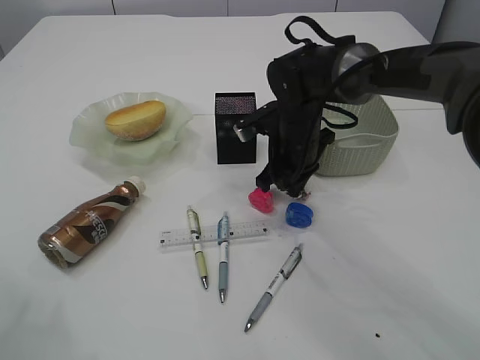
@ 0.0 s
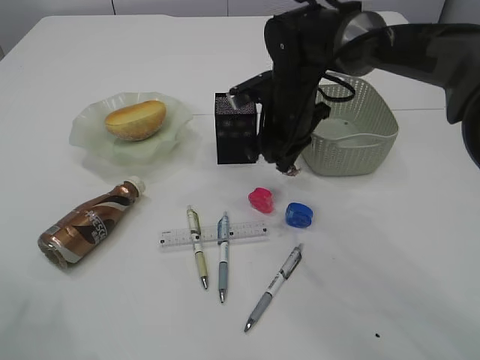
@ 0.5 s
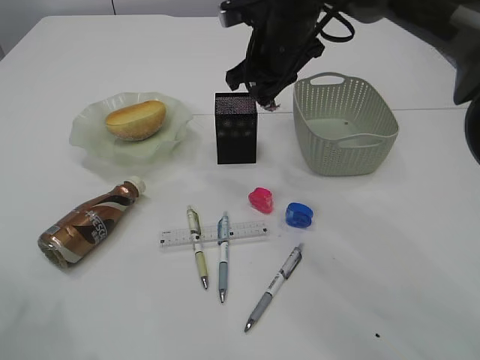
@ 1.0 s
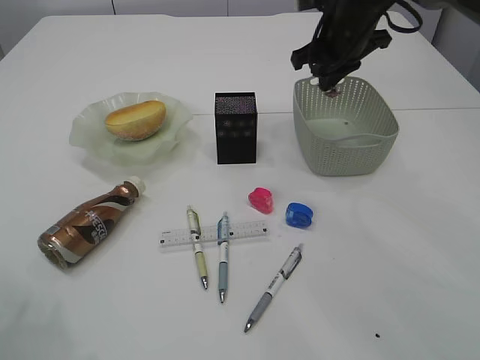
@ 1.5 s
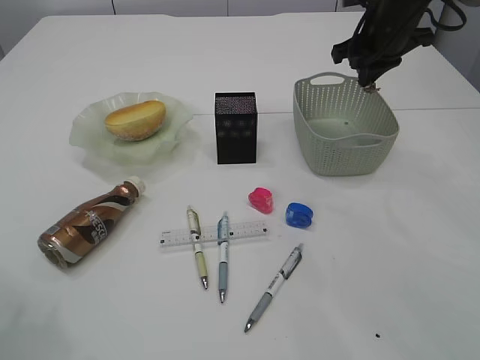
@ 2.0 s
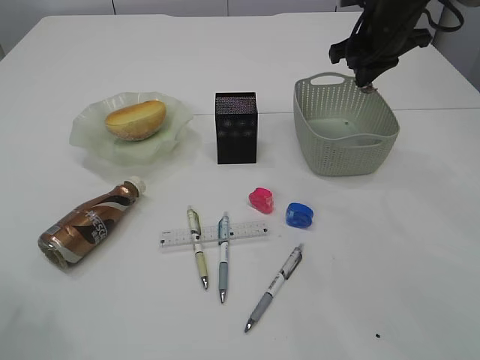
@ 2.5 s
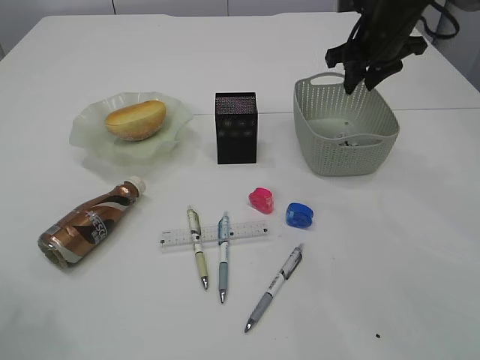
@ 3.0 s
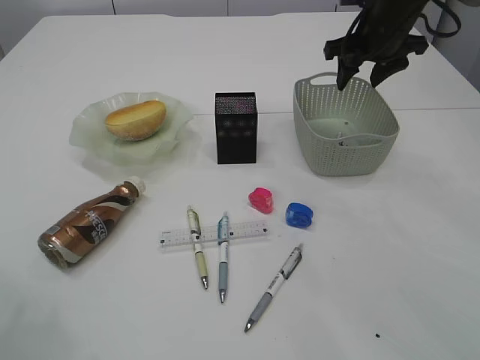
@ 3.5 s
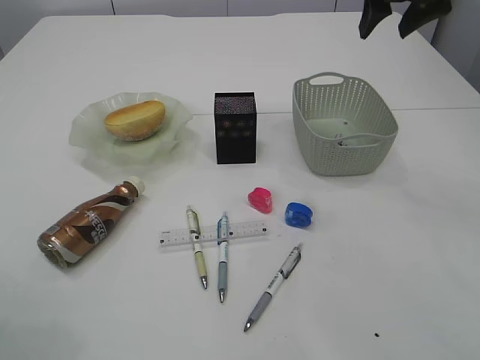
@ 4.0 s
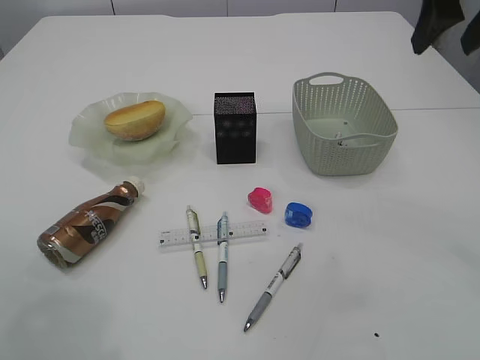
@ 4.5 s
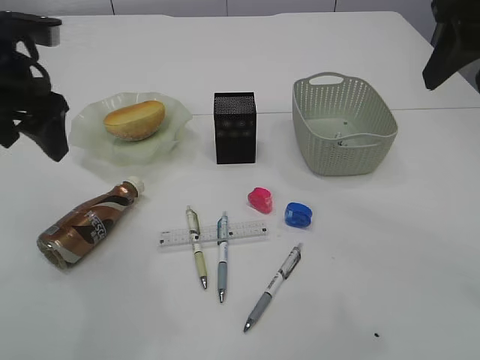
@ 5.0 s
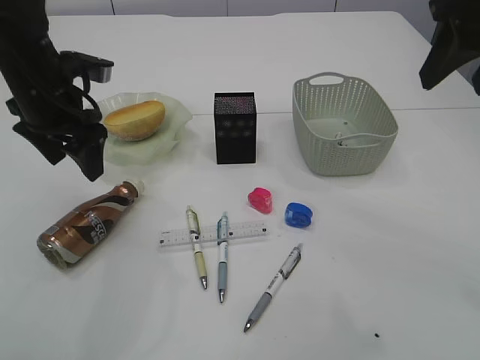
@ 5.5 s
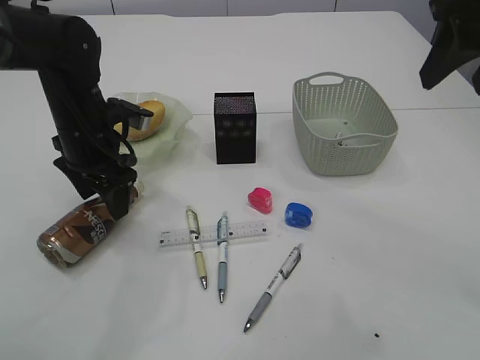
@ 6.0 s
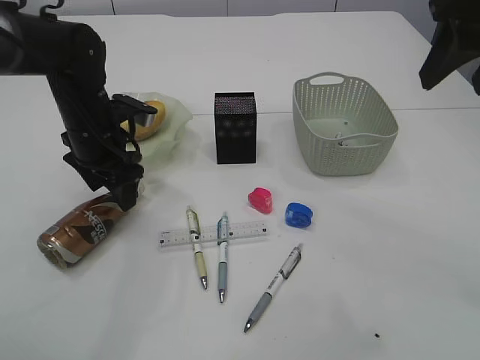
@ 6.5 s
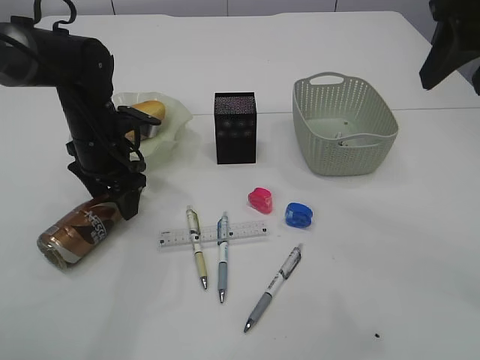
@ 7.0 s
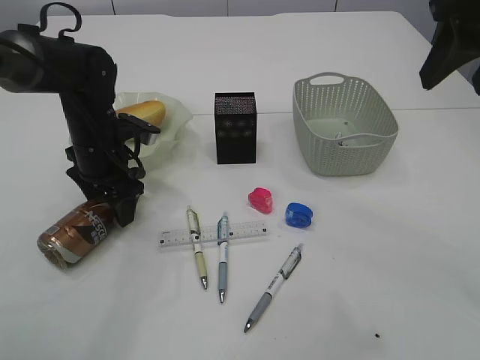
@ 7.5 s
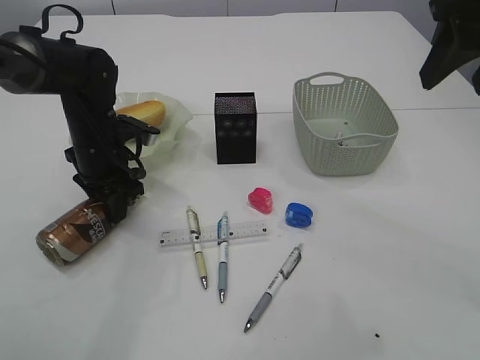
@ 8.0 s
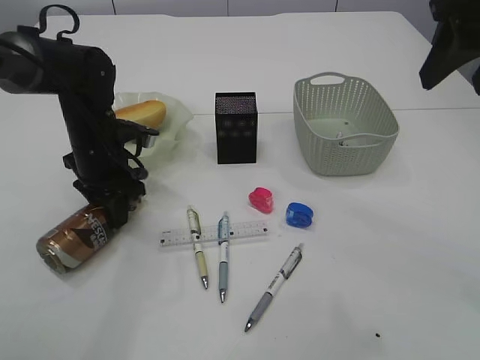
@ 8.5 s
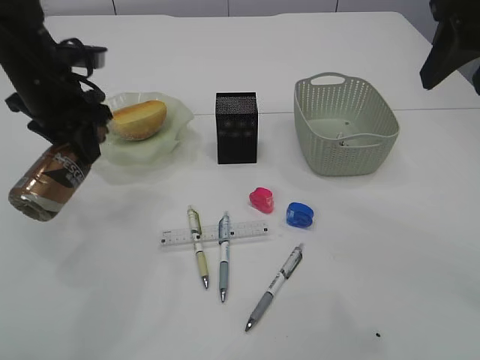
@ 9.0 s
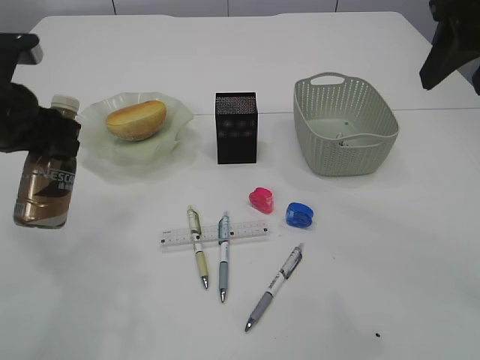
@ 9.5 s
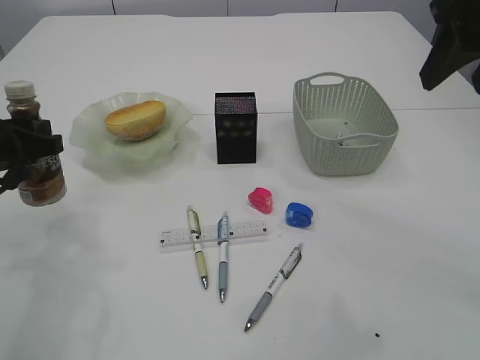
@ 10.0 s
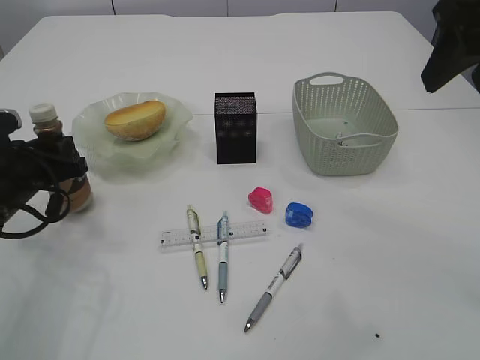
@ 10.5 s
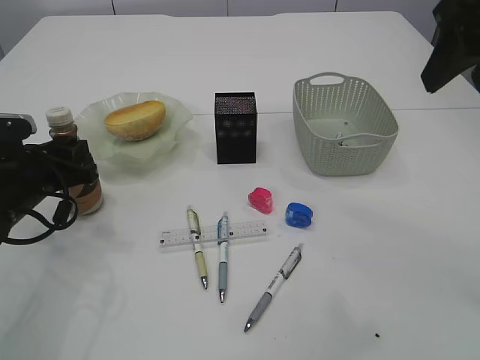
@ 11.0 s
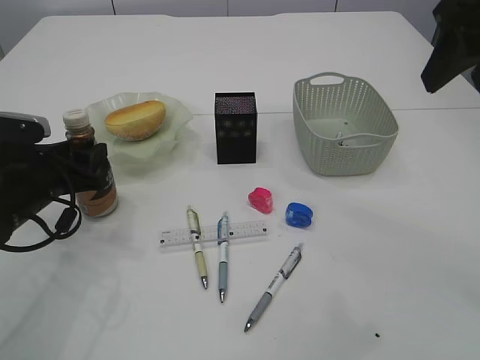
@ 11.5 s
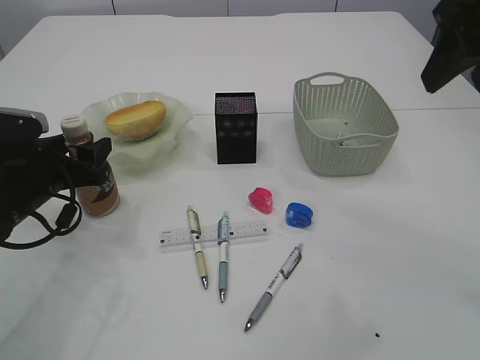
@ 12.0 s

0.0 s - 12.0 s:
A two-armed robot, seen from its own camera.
Step, 1.0 s - 3.5 s: Place the waste paper in the basket.
Step, 4.0 s - 8.5 s: Pick up the bottle with the left arm.
0.0 s - 2.0 s: The right gripper moves to the right, upward and forward, approximately 20 cm.
2.0 s - 4.0 s: The right gripper travels upward and backward by approximately 10 cm, and opens.
4.0 s - 6.0 s: The left gripper is displaced forward, downward and to the right by approximately 25 cm, while the right gripper travels backward by some 15 cm.
6.0 s - 8.0 s: The left gripper closes its fingers.
8.0 s - 10.0 s: The left gripper heads backward, to the left and upward, covering about 15 cm.
10.0 s - 12.0 s: The left gripper heads downward, covering about 5 cm, and opens its fingers.

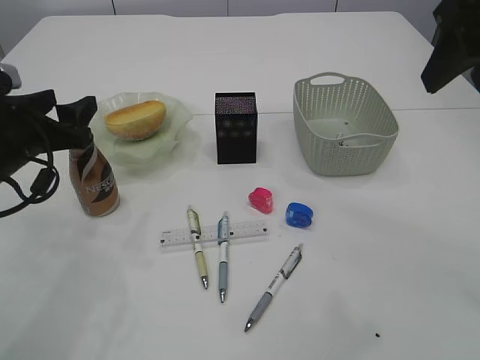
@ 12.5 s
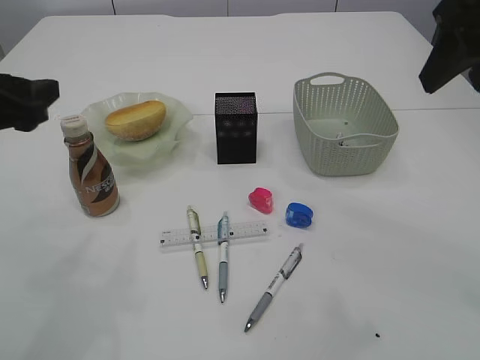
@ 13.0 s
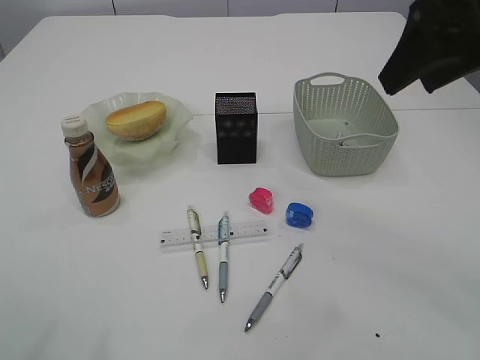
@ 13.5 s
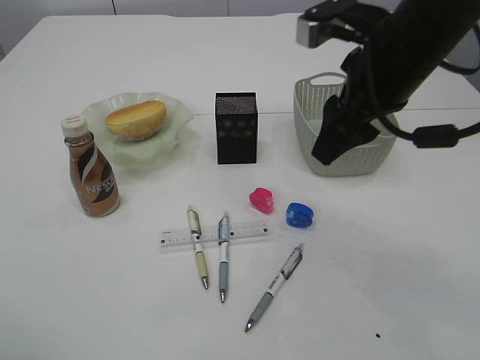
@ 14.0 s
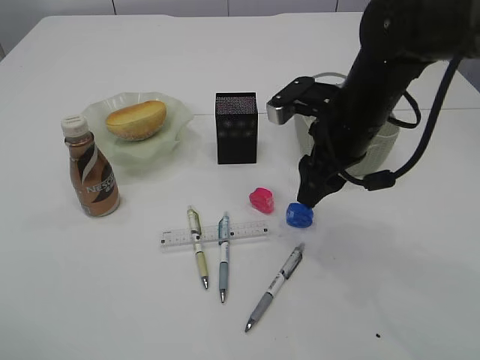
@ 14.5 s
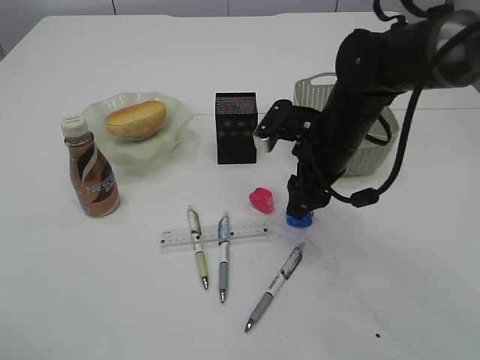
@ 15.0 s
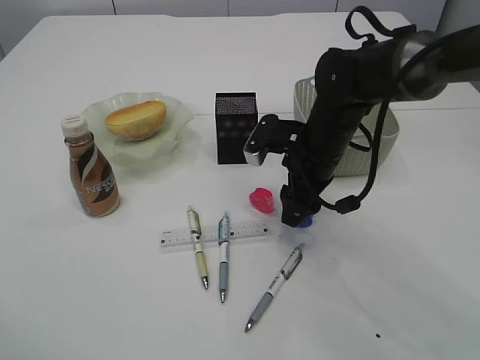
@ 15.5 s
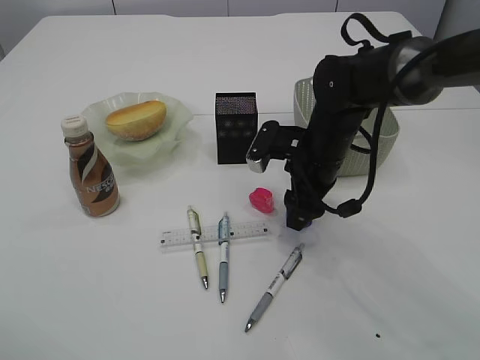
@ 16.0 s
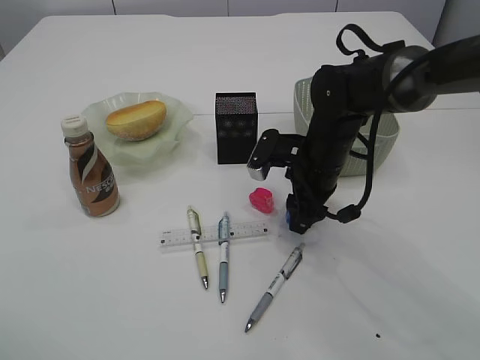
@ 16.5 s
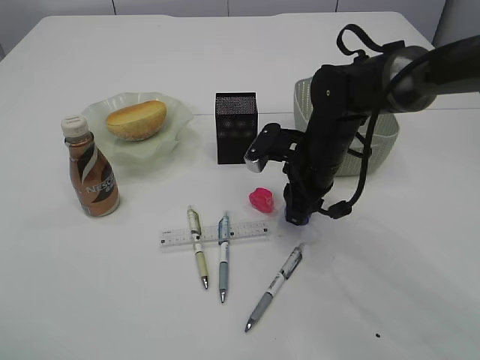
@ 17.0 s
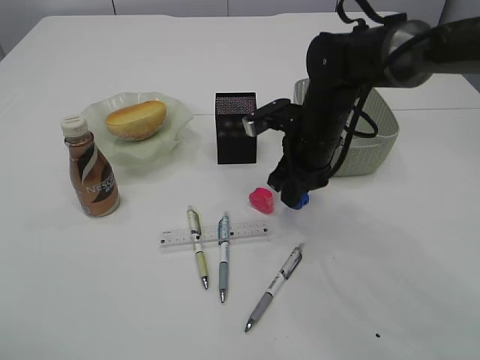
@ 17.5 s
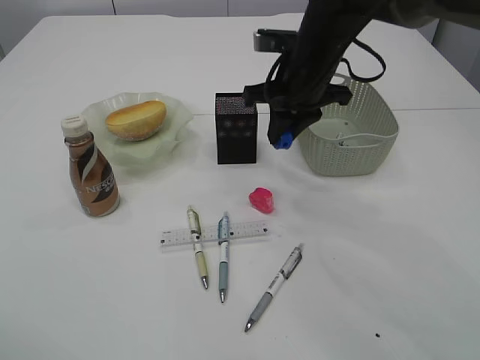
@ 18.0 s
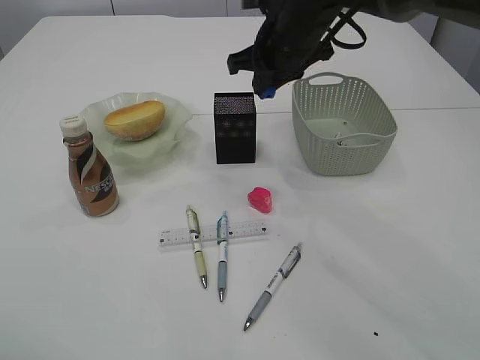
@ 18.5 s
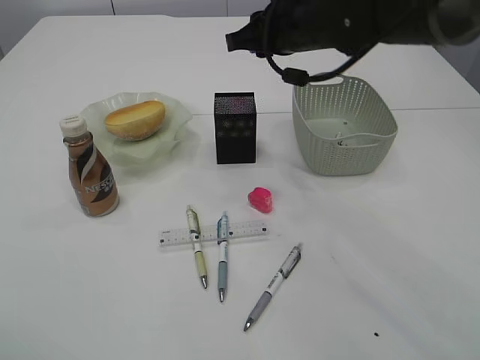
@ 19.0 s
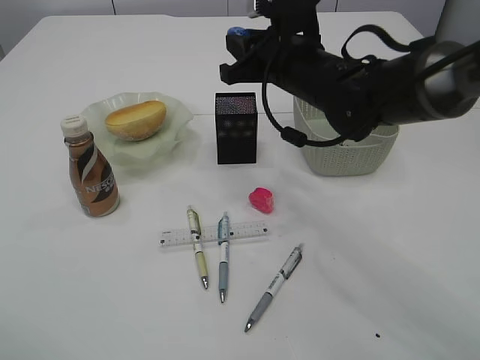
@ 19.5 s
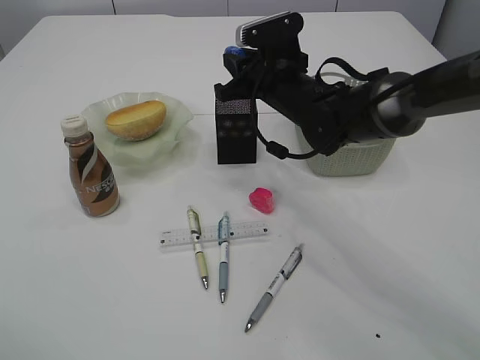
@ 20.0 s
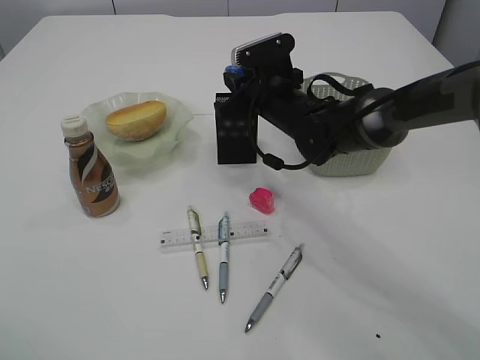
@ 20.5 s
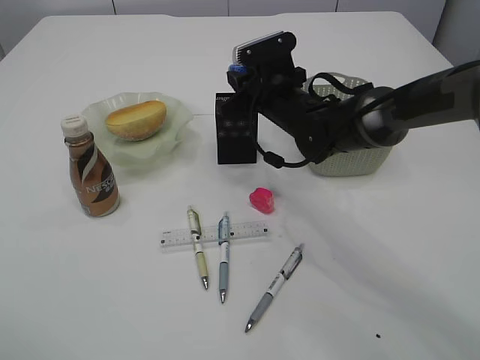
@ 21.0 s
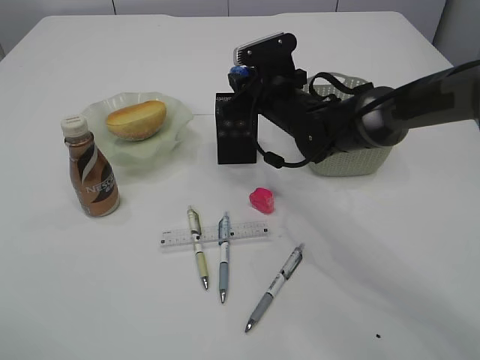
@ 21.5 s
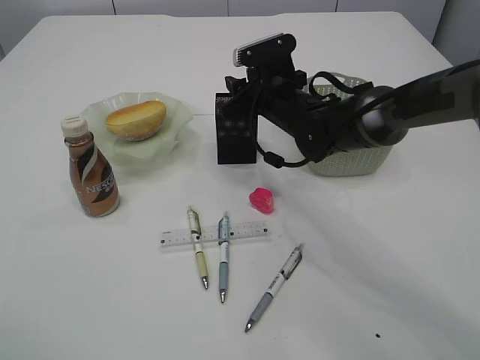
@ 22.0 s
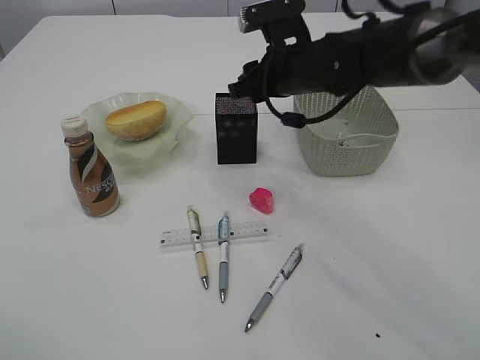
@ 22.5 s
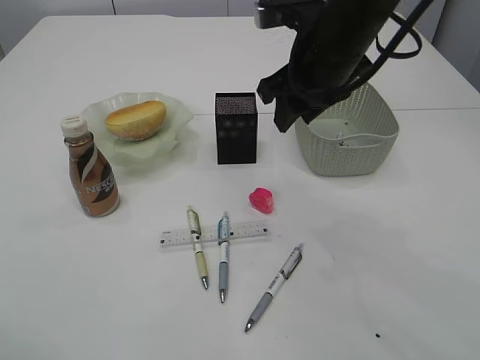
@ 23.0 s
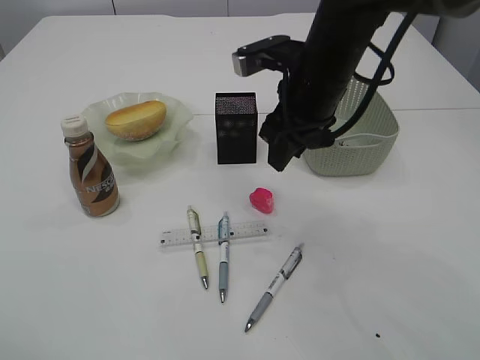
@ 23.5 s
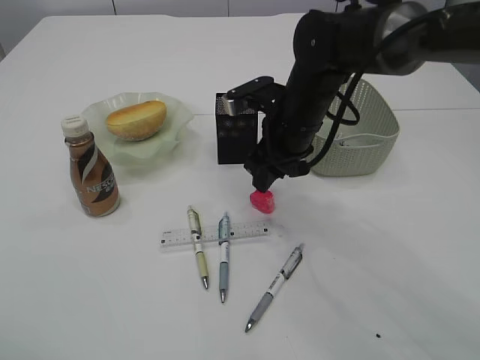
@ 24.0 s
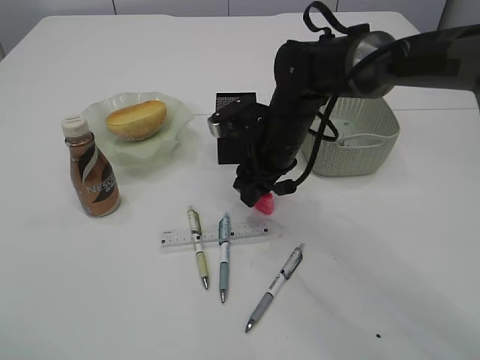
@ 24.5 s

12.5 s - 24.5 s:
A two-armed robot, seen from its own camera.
Step, 13.0 s - 17.5 s: Pick up the blue pencil sharpener.
Step, 18.0 s - 22.5 s: Place the blue pencil sharpener into the pen holder.
12.5 s - 14.5 s: The right gripper is displaced downward, to the left and forward by some 20 cm, while the left gripper goes roughly 25 cm upward and backward.
14.5 s - 16.5 s: The right gripper travels downward by some 10 cm.
16.5 s - 18.5 s: The right gripper shifts approximately 15 cm upward and forward, and closes its fingers.
18.5 s - 20.5 s: The right gripper is displaced downward by some 10 cm.
20.5 s - 22.5 s: The right gripper is displaced upward by approximately 5 cm.
22.5 s - 24.5 s: The right gripper is displaced downward by some 5 cm.

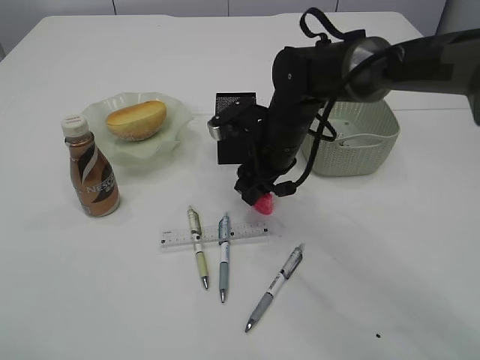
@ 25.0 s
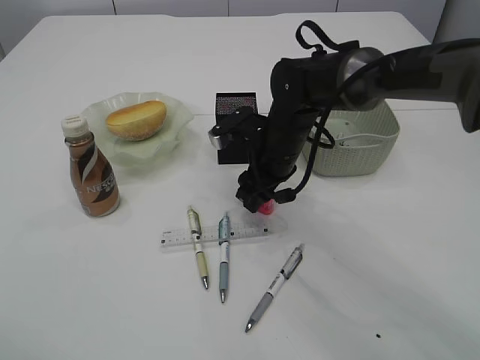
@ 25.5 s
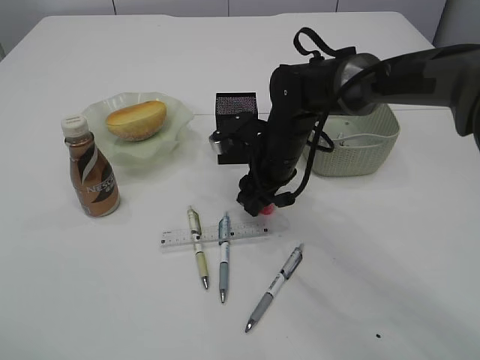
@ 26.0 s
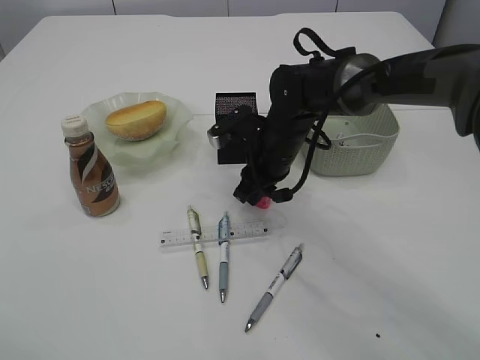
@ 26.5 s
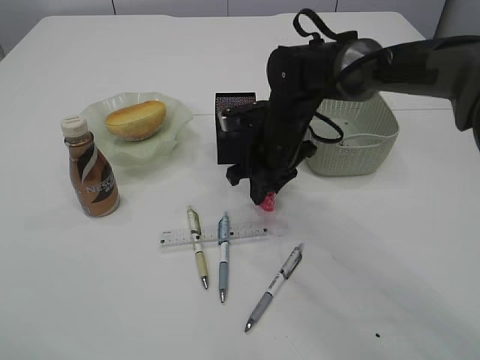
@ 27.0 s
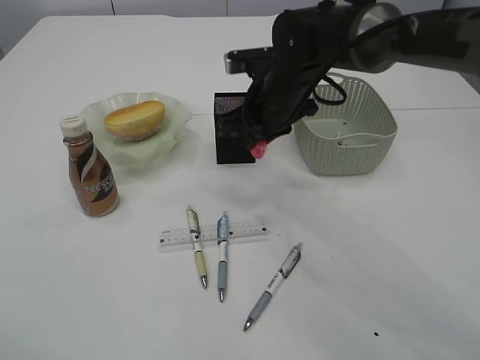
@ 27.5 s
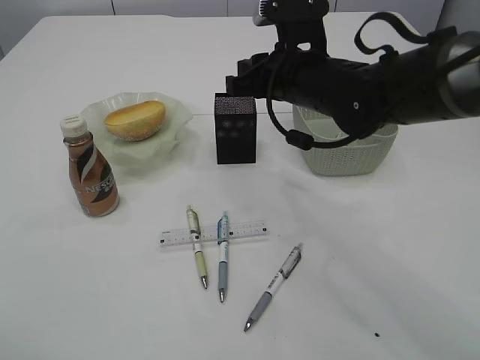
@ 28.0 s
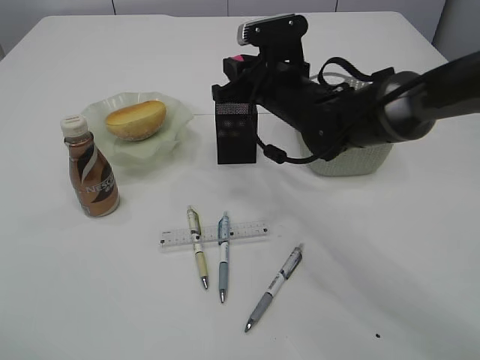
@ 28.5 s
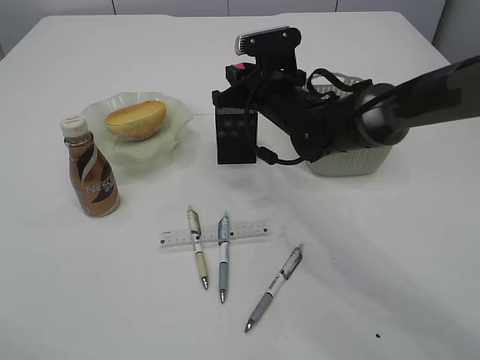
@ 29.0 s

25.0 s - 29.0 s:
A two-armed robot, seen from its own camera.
Step, 25.0 s - 27.0 s: Pick up the red pencil sharpener.
25.0 s - 27.0 s: The right gripper closes.
27.0 s - 29.0 s: The right gripper goes upward and returns, approximately 10 cm each way.
